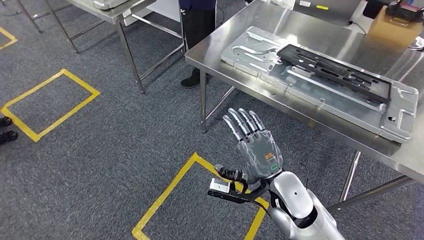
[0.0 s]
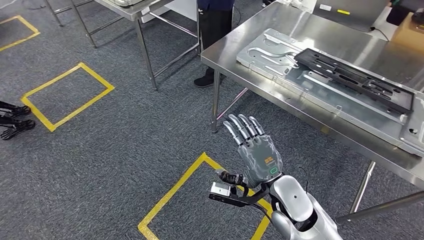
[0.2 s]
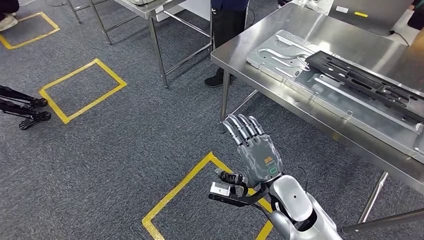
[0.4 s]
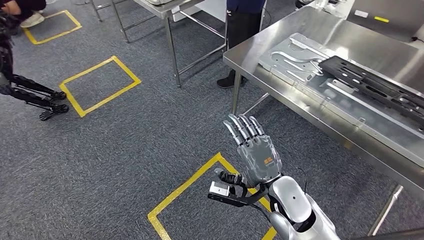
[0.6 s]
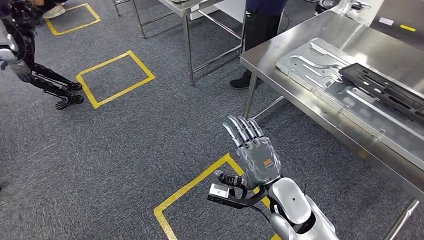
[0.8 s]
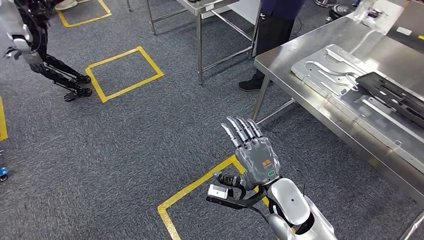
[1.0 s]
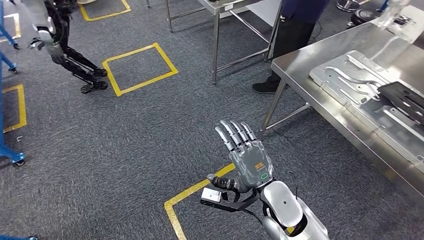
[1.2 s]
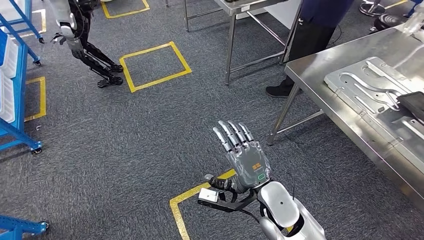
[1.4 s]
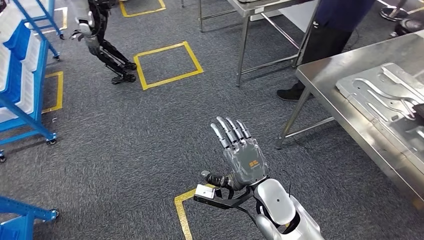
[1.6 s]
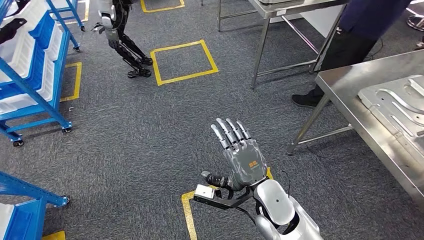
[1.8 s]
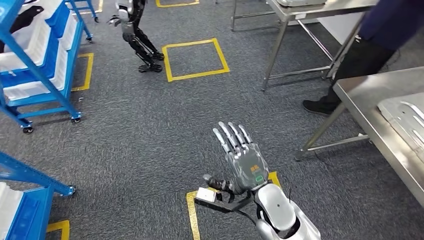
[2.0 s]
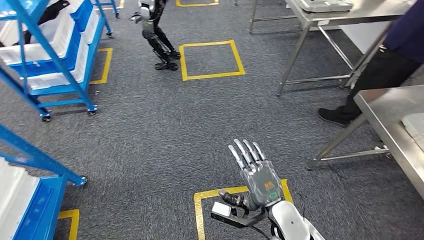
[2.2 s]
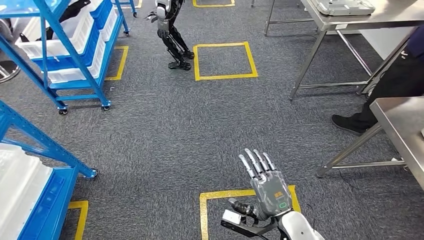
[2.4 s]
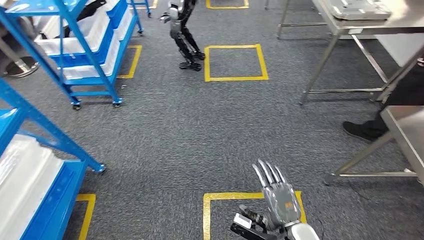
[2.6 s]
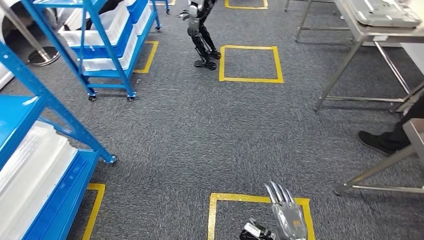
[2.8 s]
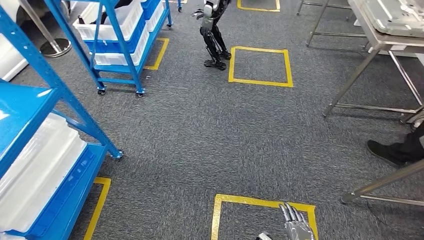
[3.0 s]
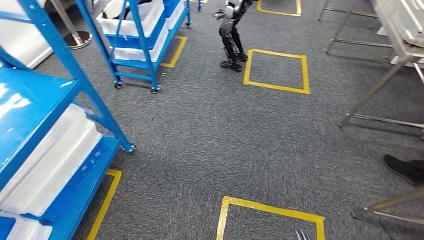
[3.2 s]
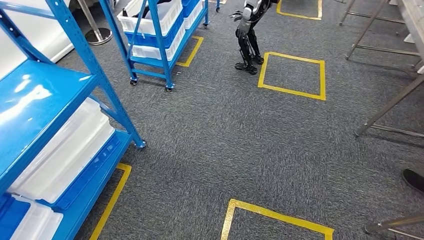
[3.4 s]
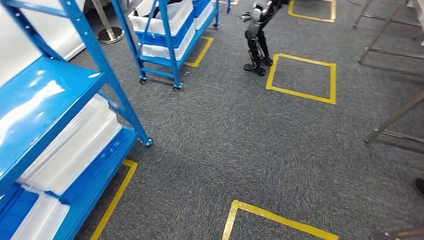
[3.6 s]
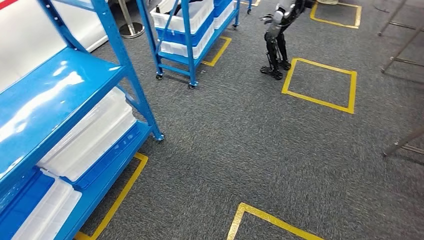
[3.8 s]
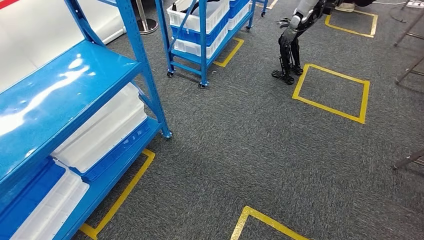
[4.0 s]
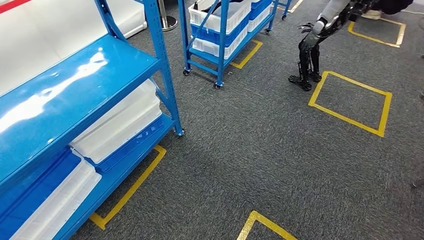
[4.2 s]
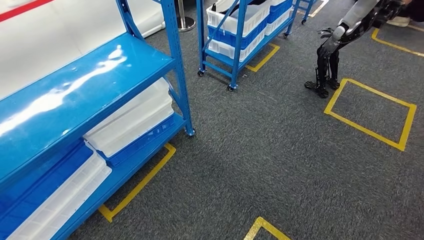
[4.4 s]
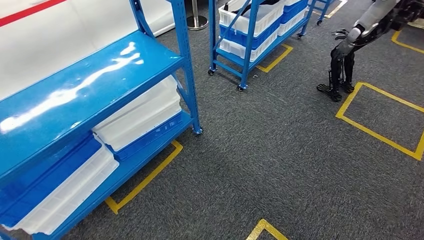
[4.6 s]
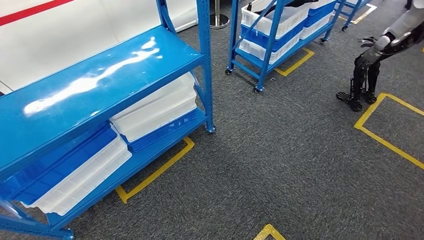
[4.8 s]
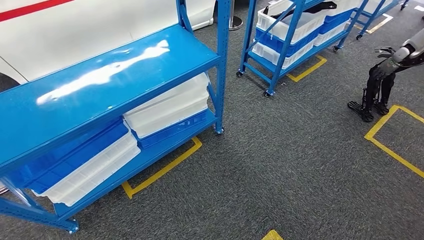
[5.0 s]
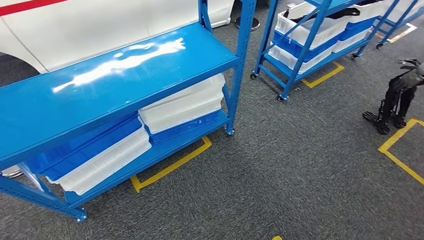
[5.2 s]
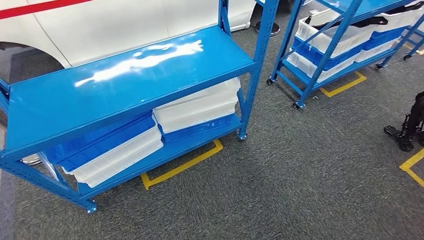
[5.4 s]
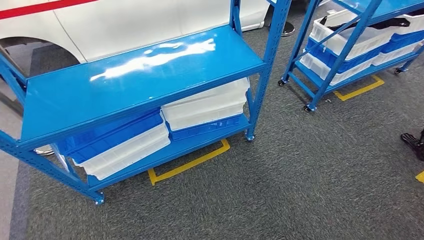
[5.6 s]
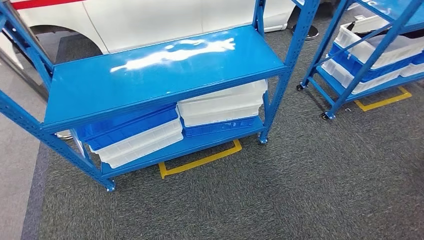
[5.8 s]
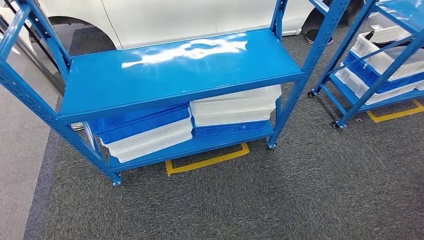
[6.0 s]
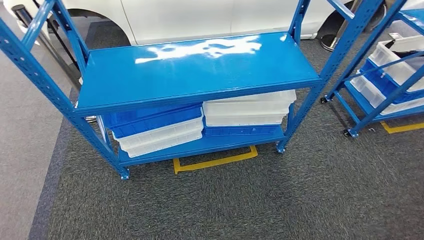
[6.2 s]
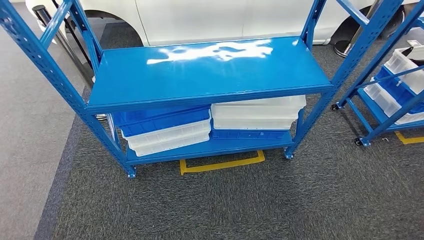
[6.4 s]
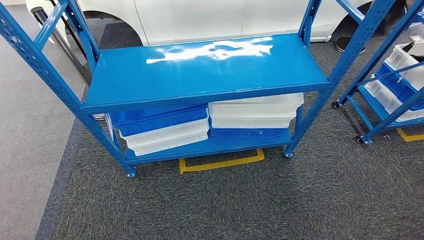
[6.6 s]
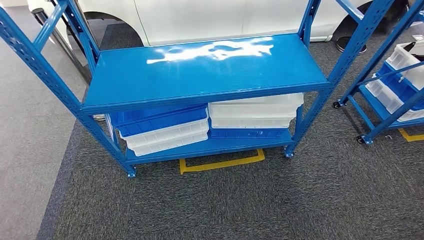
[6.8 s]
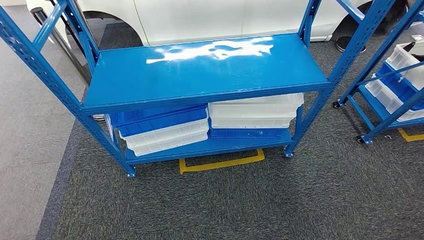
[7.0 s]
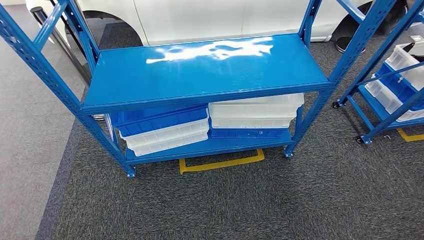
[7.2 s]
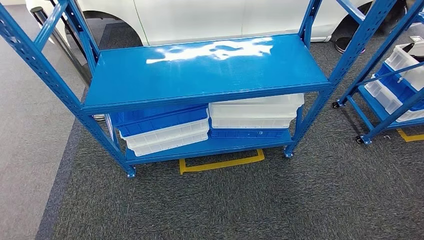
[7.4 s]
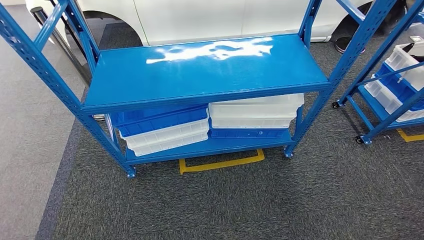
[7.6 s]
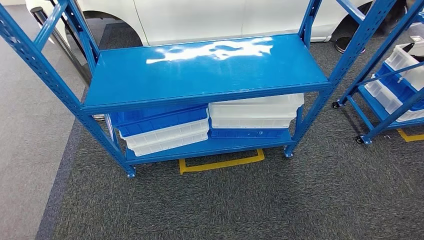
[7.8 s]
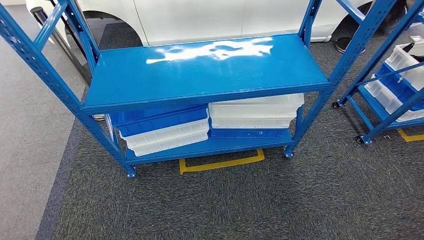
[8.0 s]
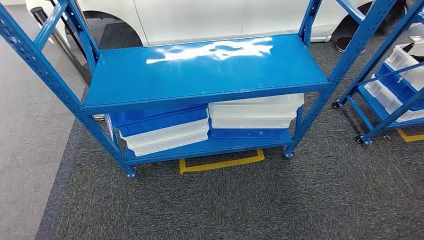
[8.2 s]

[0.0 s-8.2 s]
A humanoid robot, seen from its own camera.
Step, 0.0 to 8.0 s: Return to the initial position at the shelf.
